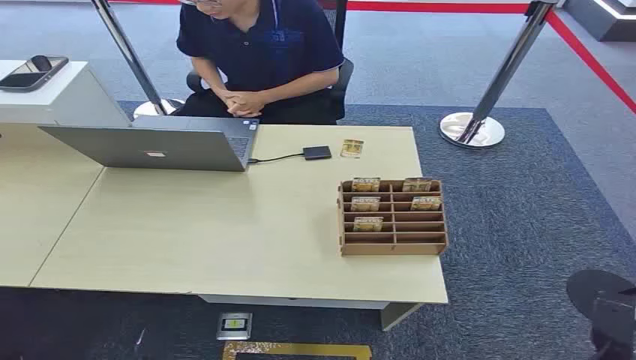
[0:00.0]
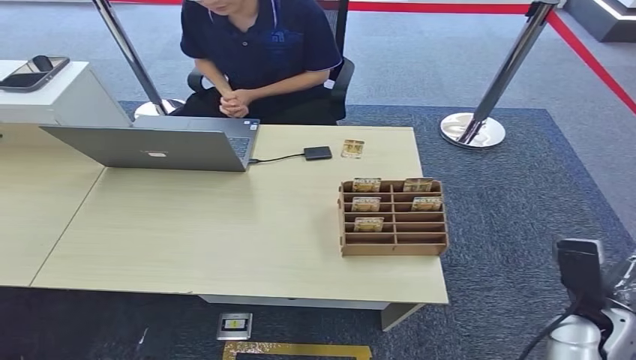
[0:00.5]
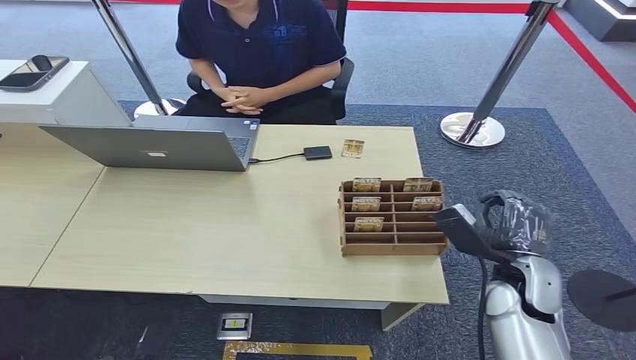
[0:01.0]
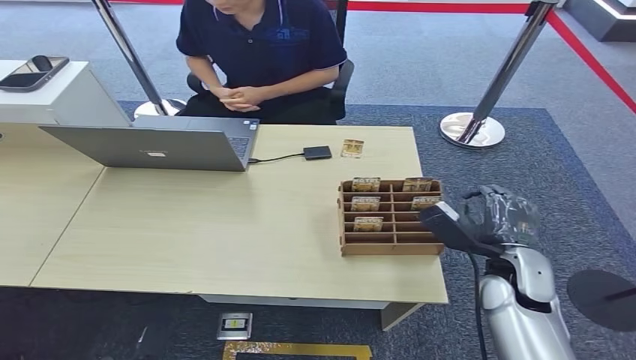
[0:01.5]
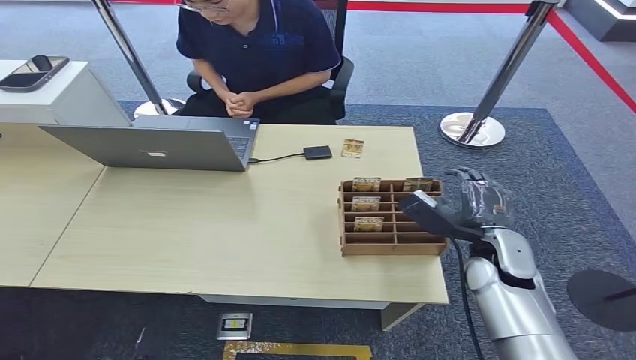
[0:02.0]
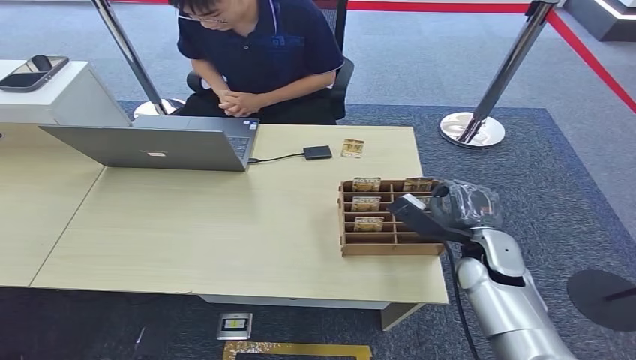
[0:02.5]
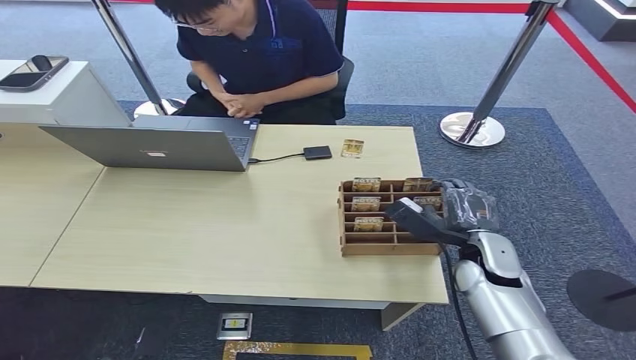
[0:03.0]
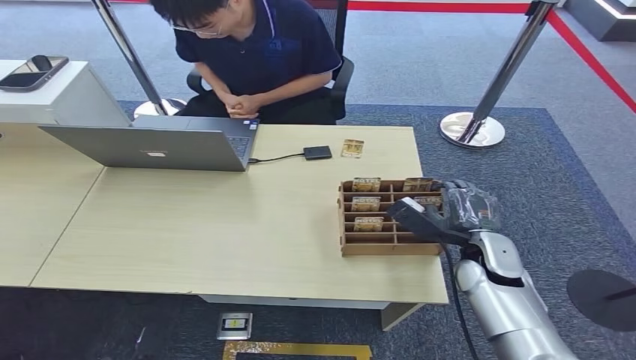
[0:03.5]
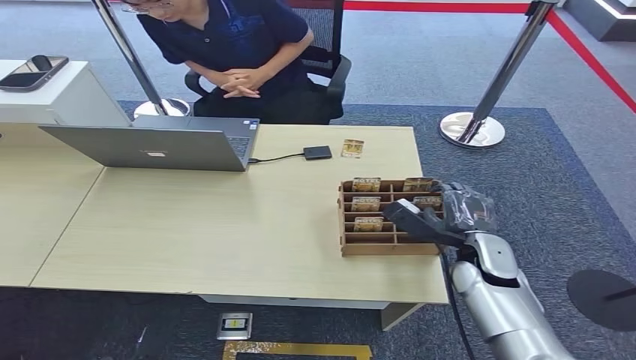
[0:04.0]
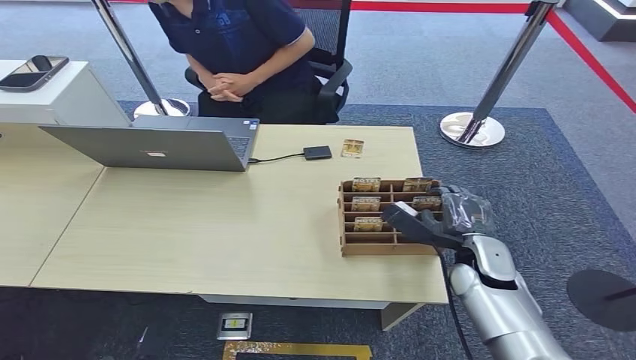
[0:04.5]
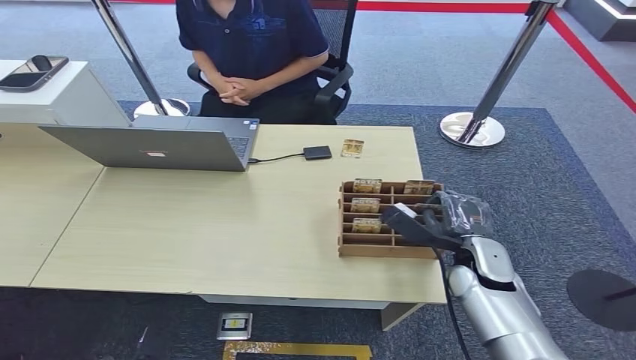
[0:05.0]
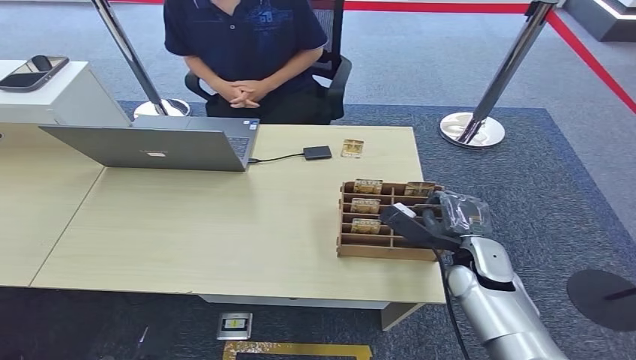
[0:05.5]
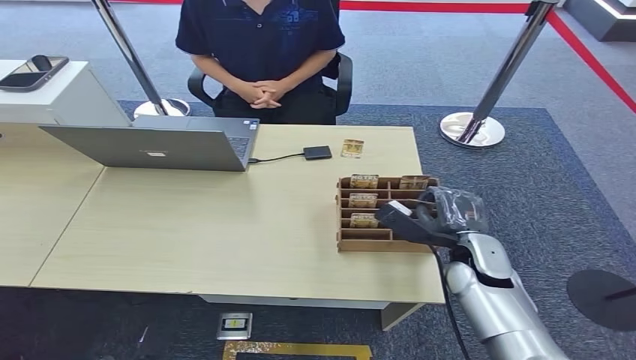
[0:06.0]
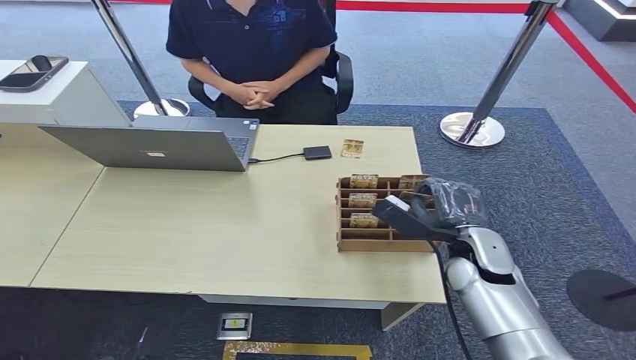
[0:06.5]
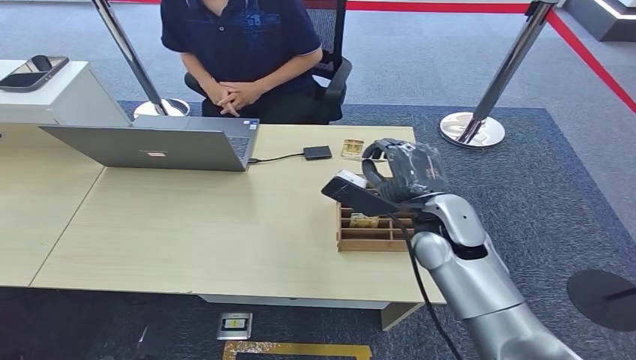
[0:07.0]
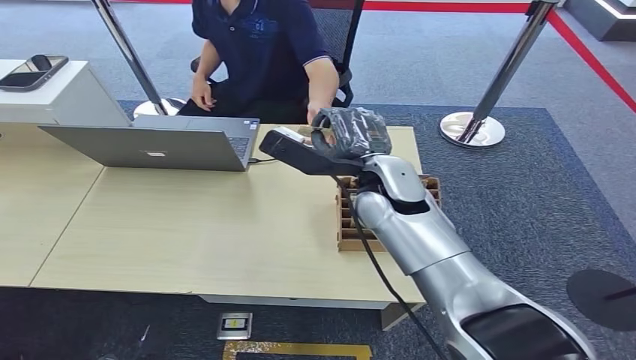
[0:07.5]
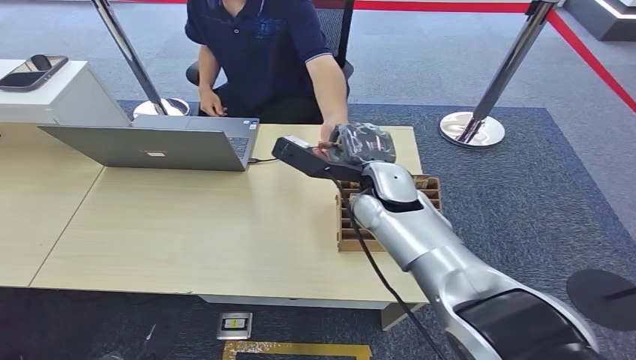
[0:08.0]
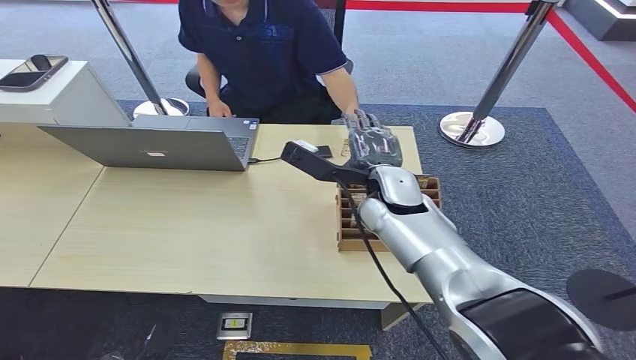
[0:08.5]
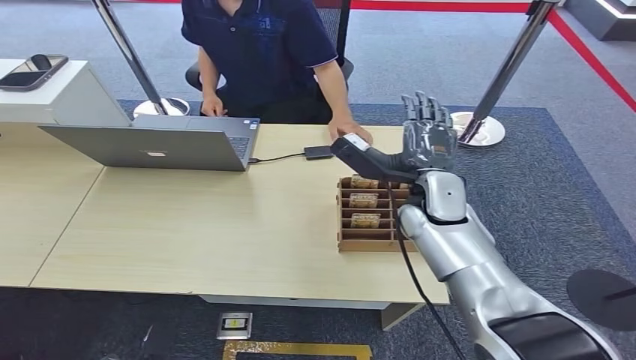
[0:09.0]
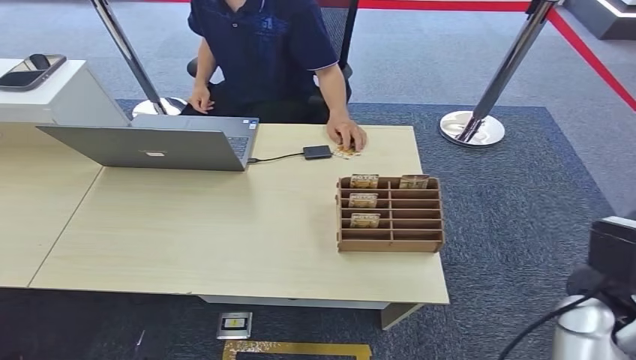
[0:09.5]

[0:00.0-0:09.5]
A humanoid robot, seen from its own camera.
Task of the whole recording: Pick up the card and hand it over to the target person.
Step, 0:00.0 to 0:06.5: Pick up the key card from the card box.
Step, 0:07.0 to 0:09.5: Hand the key card to the target.
0:02.0 to 0:05.5: The hands make only small movements.
0:05.5 to 0:07.5: The right hand travels upward, to the left and forward by approximately 25 cm.
0:07.5 to 0:09.5: The right hand shifts about 50 cm to the right, backward and downward.

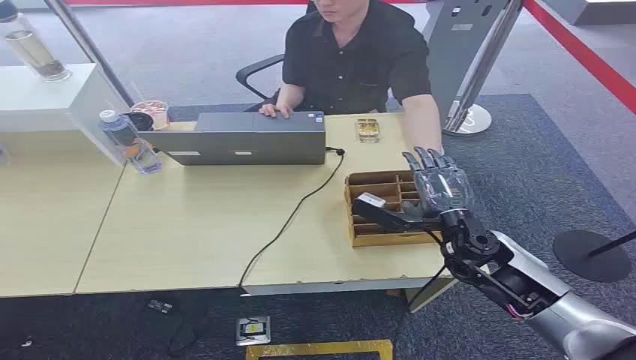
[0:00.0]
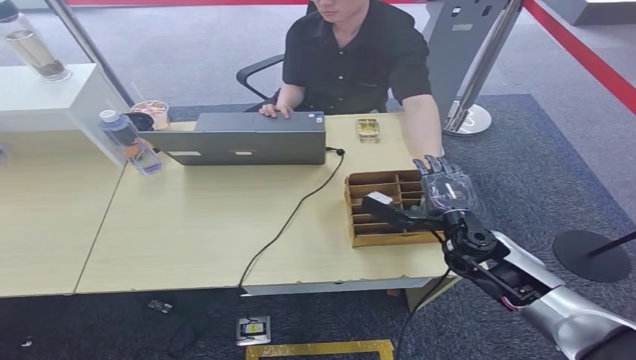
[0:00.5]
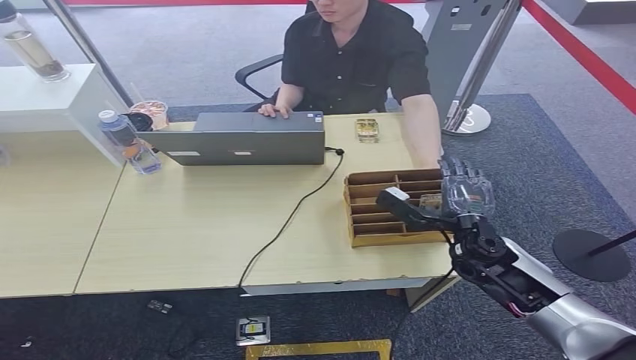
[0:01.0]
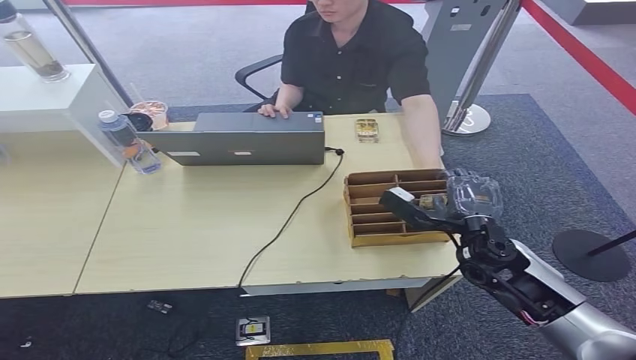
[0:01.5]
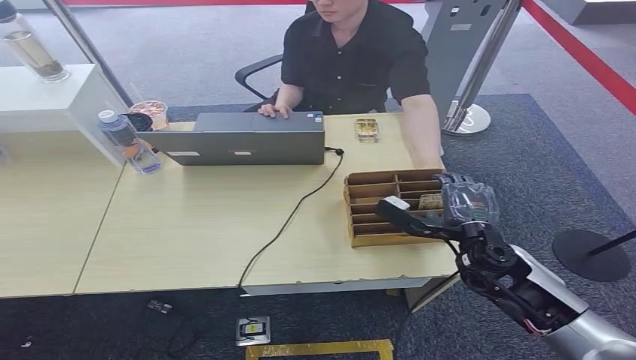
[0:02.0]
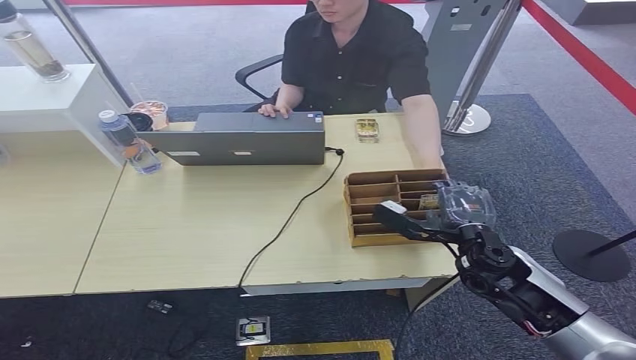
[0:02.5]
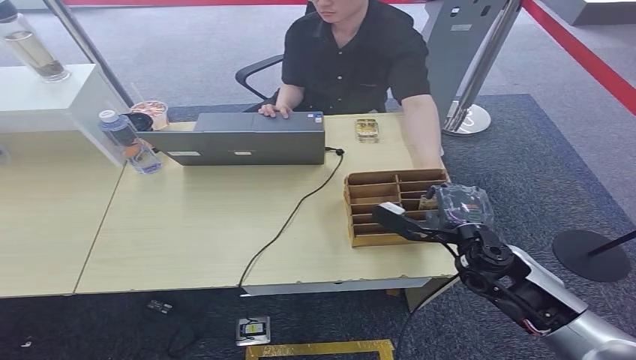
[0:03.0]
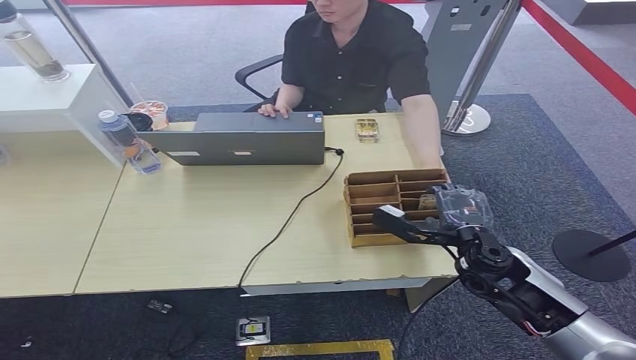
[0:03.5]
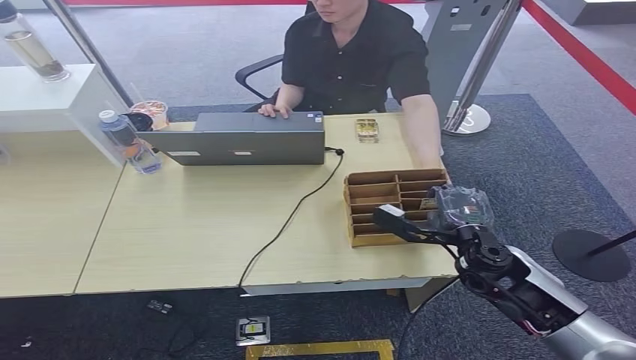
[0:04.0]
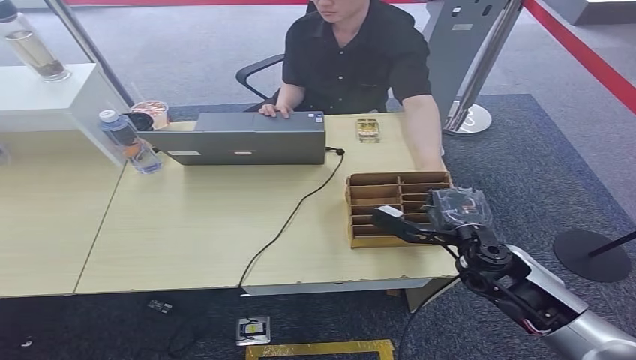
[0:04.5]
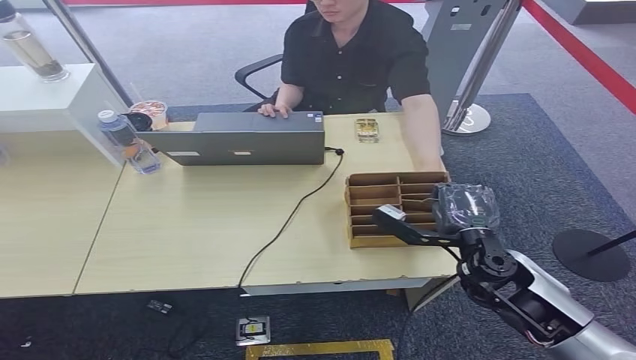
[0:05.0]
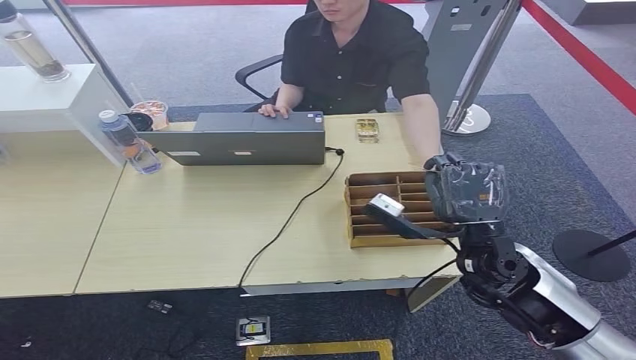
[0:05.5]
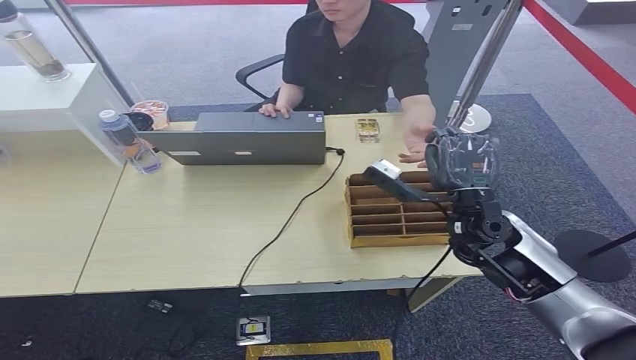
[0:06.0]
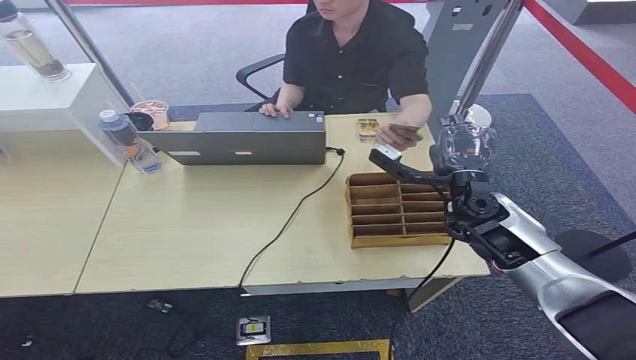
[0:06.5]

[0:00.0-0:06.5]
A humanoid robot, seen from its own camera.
Task of the whole recording: Pick up the card and hand it over to the target person.
Step, 0:00.0 to 0:05.0: Pick up the key card from the card box.
Step, 0:05.5 to 0:06.5: Hand the key card to the target.
0:02.0 to 0:04.5: There are only small adjustments of the hands.
0:04.5 to 0:06.5: The right hand is displaced forward by some 10 cm.
